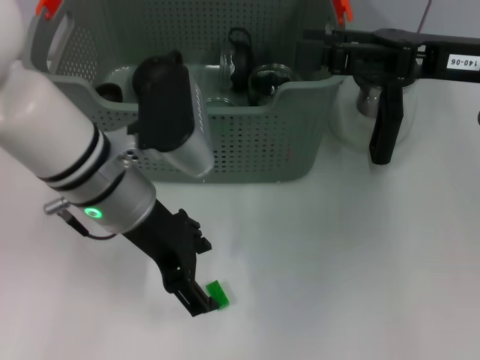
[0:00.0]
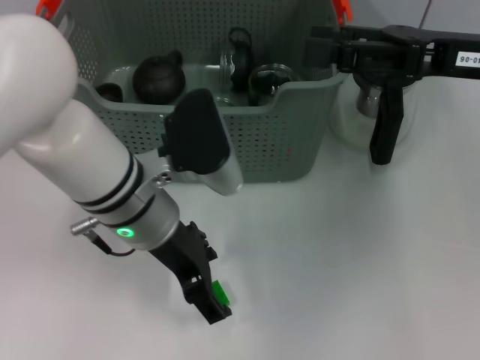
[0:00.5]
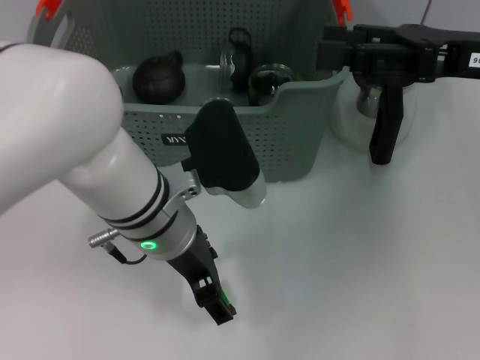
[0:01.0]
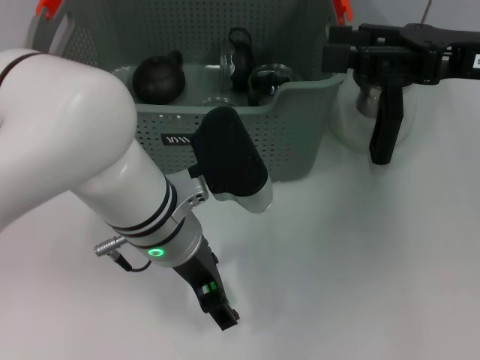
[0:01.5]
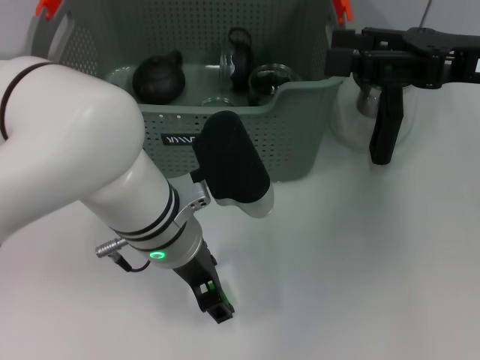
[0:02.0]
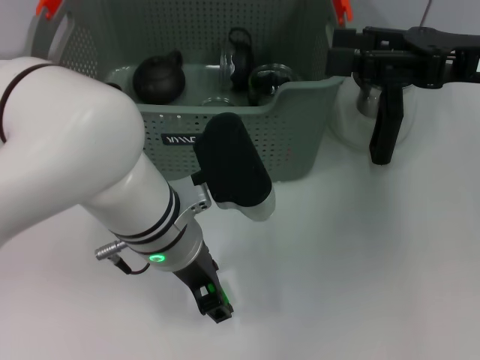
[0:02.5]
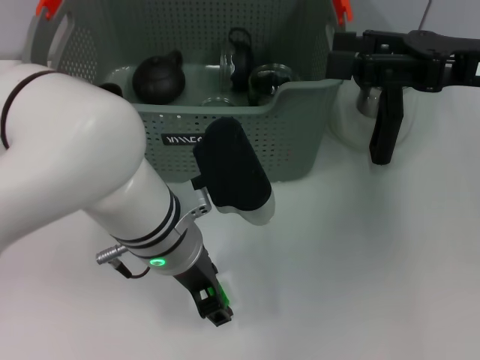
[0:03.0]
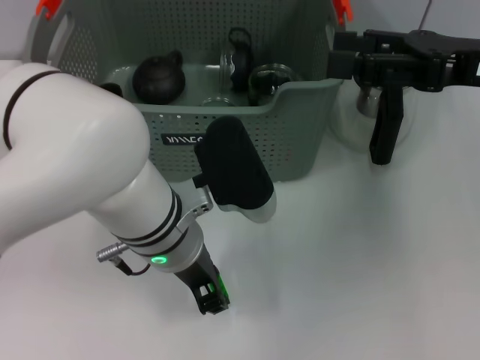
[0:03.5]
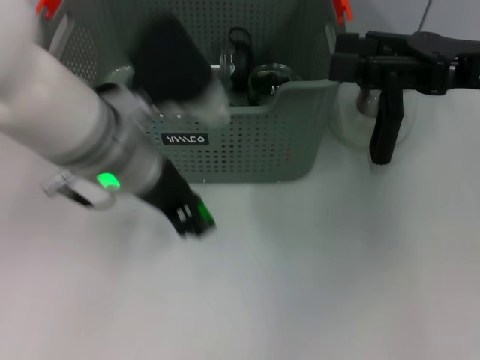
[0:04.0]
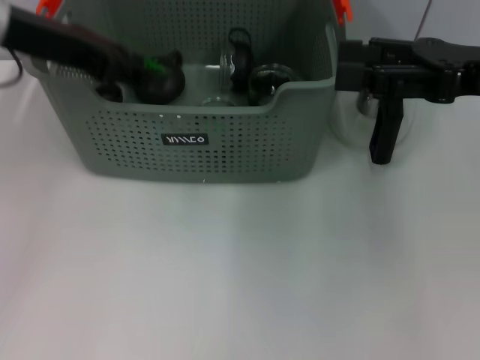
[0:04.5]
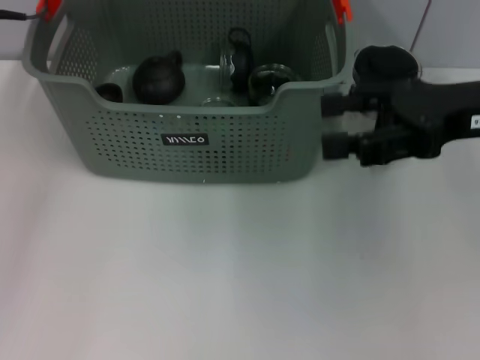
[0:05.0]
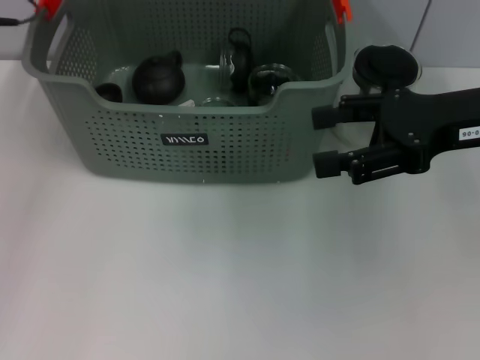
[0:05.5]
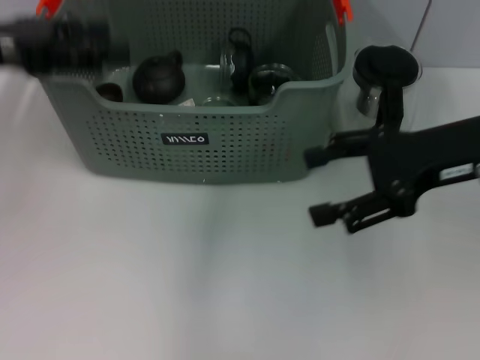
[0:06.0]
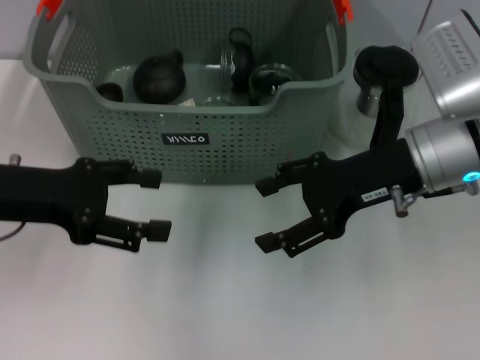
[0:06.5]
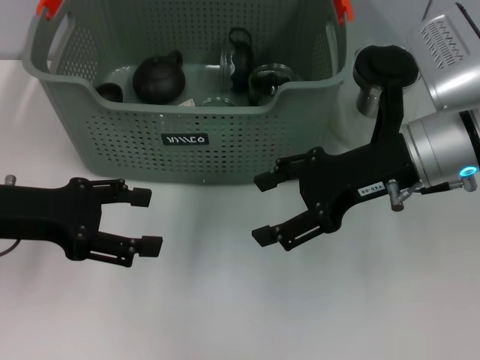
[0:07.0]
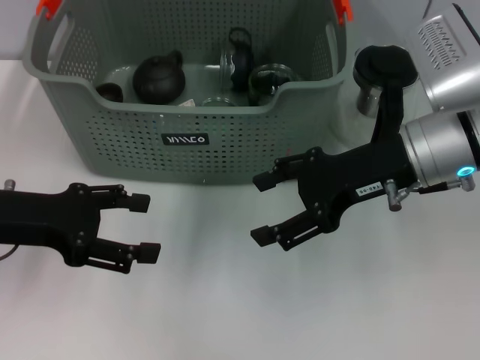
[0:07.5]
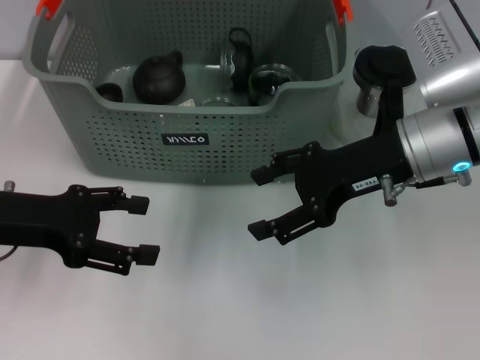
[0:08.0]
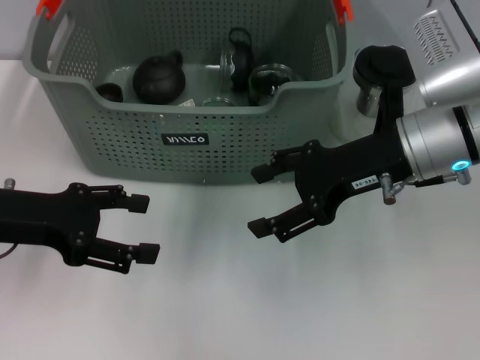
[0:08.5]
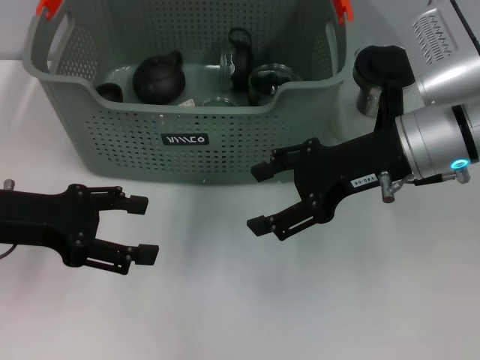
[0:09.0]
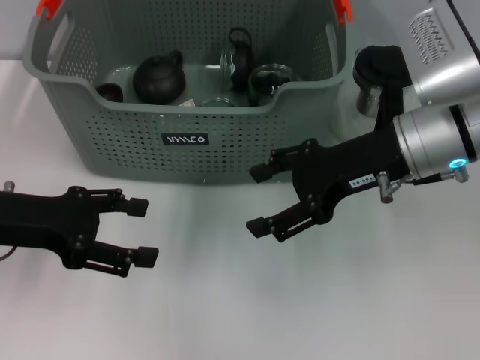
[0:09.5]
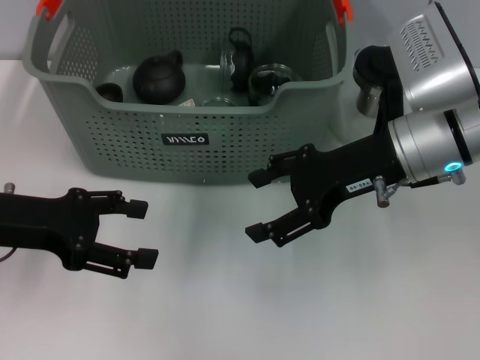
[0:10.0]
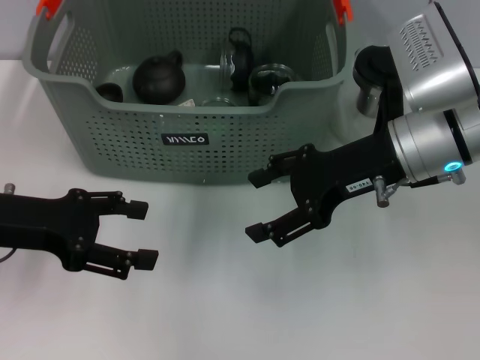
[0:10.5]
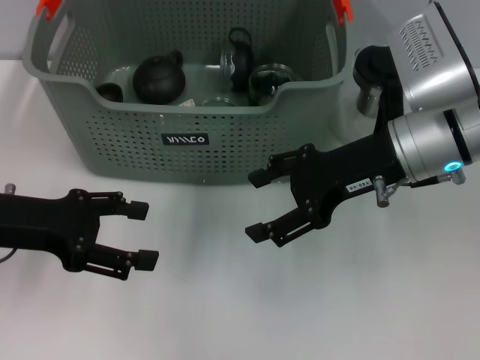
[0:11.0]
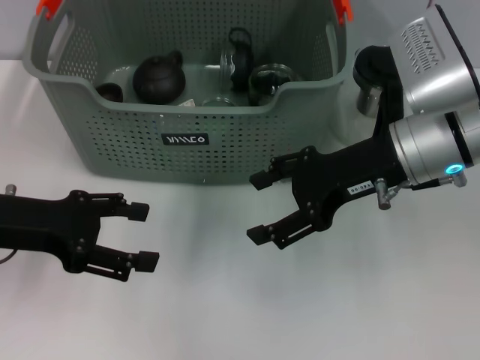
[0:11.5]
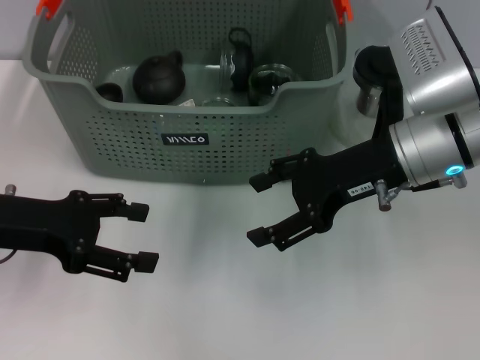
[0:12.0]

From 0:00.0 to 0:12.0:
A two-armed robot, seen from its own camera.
Task of the whole recording: pick up the teacup on the table and place it into the storage bin, pick up the block on the table and place it into the storage bin.
Step, from 0:00.0 to 0:03.0: Grasp the green block with left gripper.
Step, from 0:03.5 to 0:05.0: Place the green block in the storage box with left gripper.
From 0:00.0 to 0:02.0: The left gripper travels to the right by about 5 cm.
From 0:02.0 to 0:04.0: The left gripper moves upward, some 5 cm, and closes.
From 0:04.0 to 0:06.0: The left gripper is displaced to the left by roughly 20 cm, and opens.
From 0:06.0 to 0:08.0: The right gripper goes approximately 5 cm to the left. Meanwhile the left gripper travels downward and backward by some 10 cm.
From 0:08.0 to 0:12.0: Both grippers stay put.

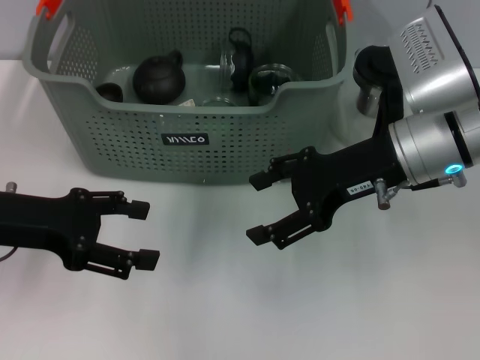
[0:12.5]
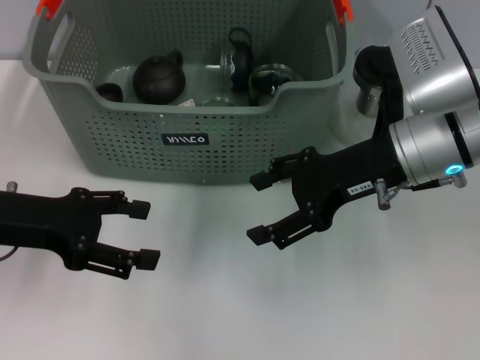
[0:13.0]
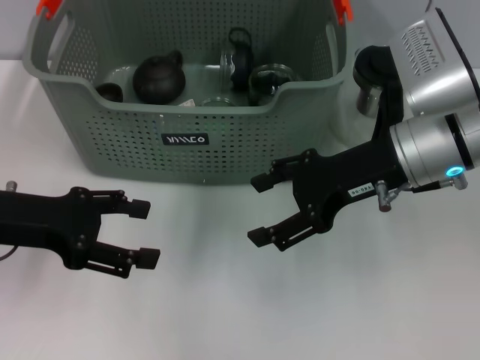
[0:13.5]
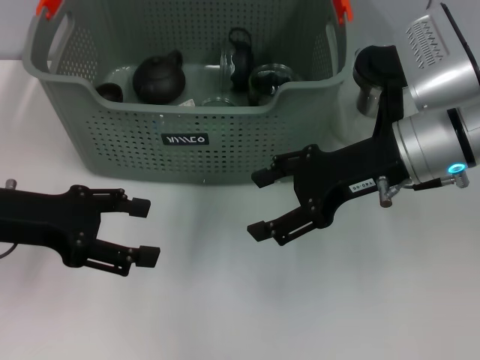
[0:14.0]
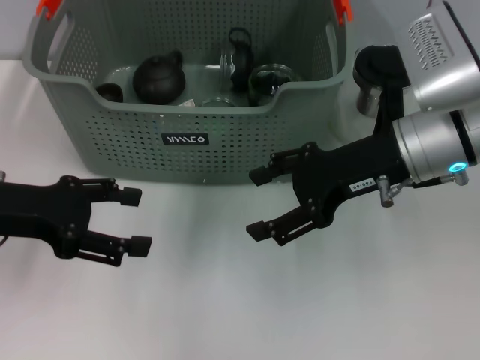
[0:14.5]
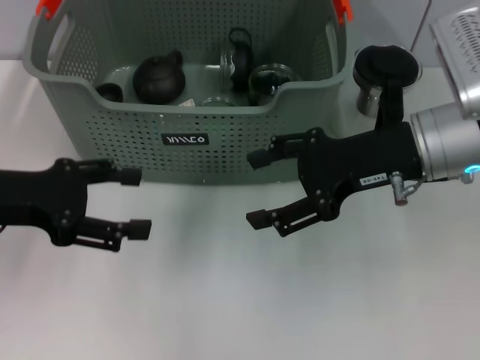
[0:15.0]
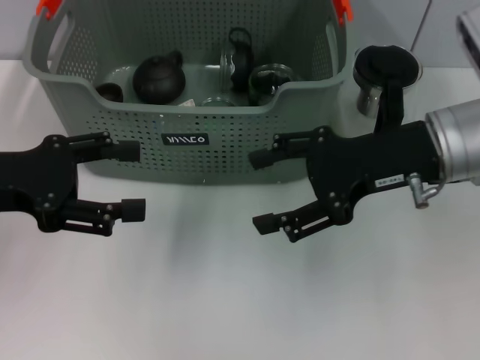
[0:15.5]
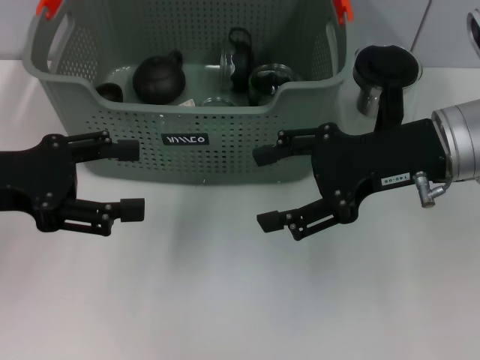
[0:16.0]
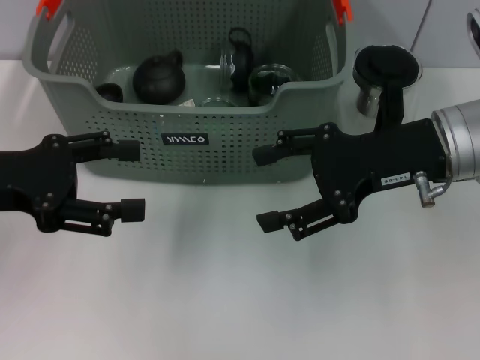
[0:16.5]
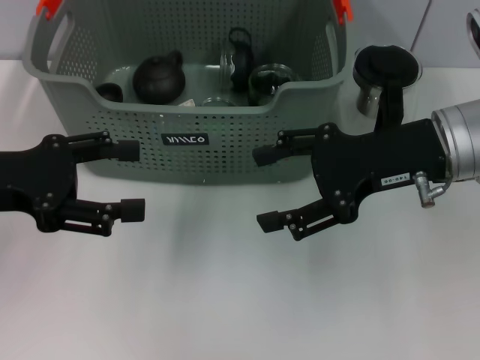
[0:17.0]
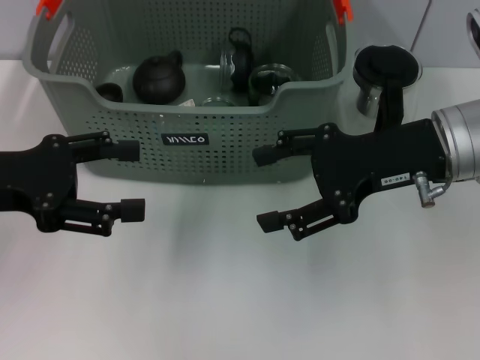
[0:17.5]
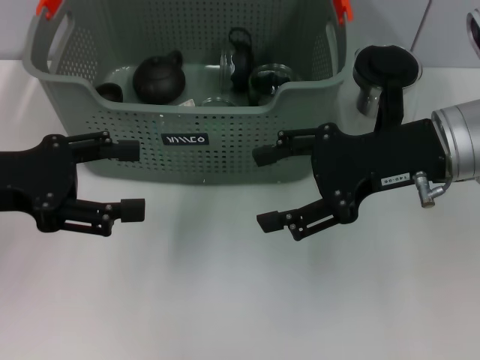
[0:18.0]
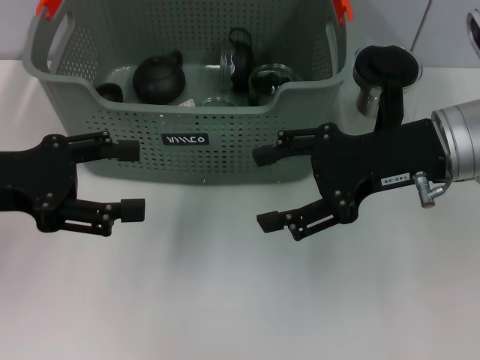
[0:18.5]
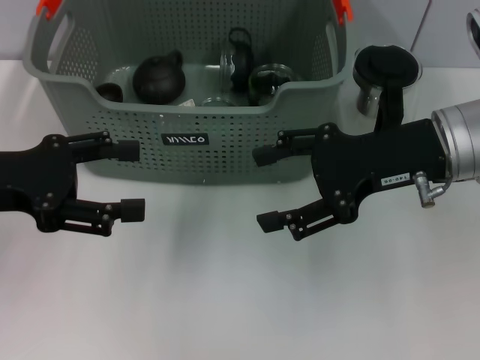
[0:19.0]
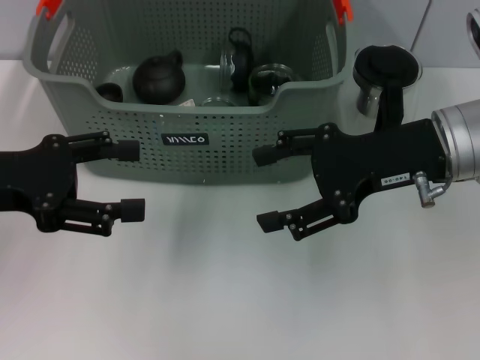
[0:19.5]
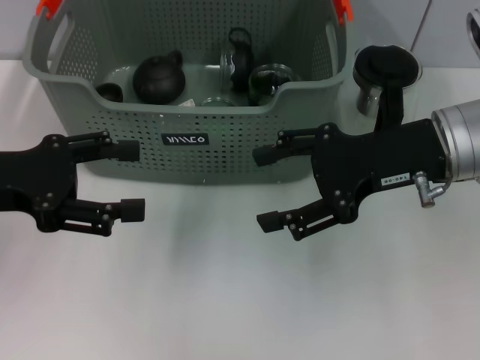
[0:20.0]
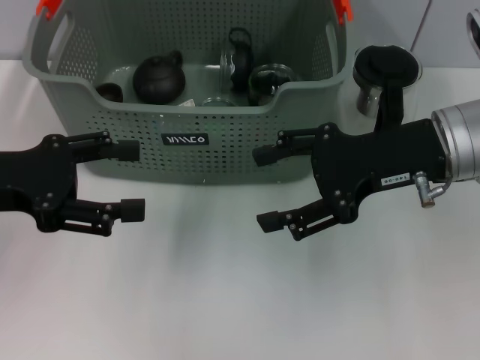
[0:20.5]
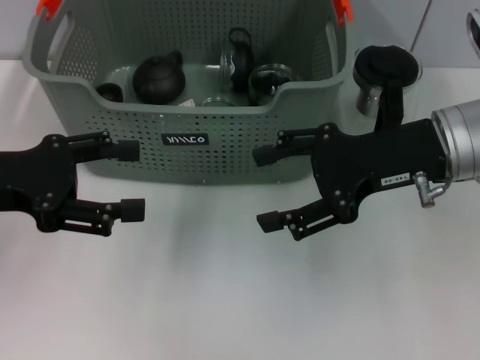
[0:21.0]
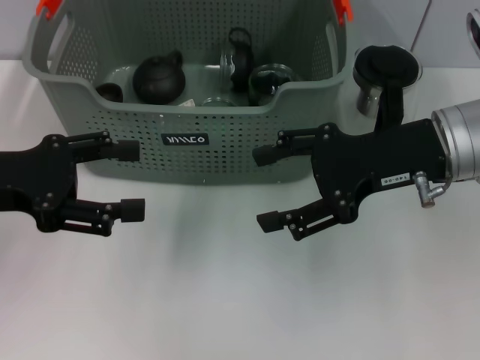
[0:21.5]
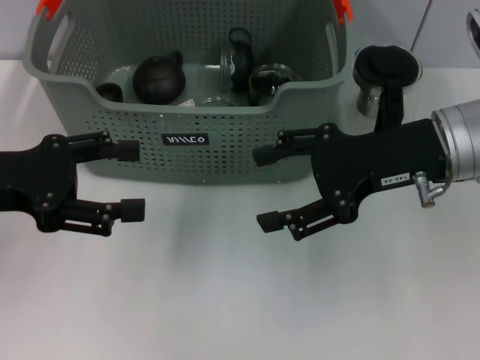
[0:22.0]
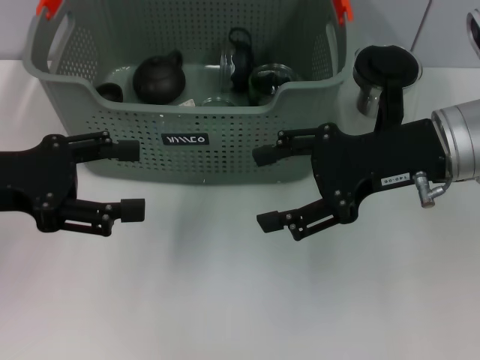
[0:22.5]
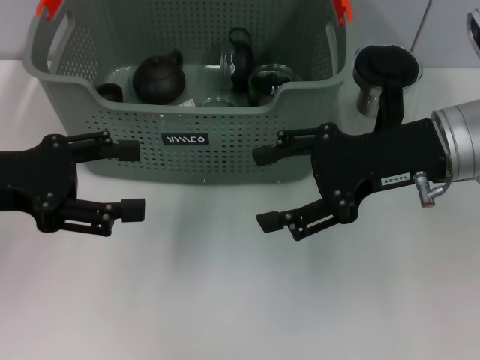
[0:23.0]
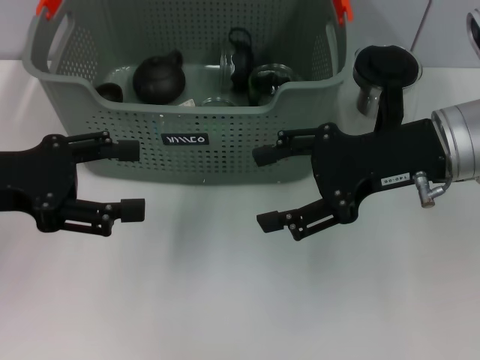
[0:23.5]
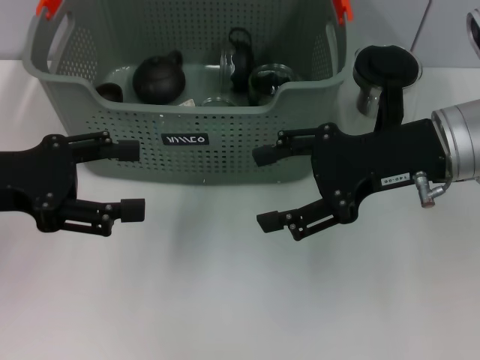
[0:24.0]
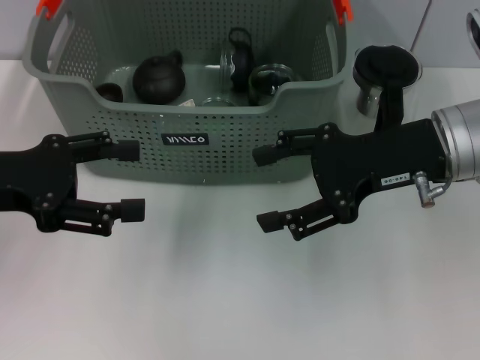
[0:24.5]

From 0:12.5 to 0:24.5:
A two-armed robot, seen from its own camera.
Task of the whole recording: pick up the teacup on the table and place it into the storage bin, pick up the block on the table and place it into the storage bin.
From 0:12.5 to 0:14.5: Both grippers stay put.
From 0:14.5 to 0:16.5: The grippers move only a little.
From 0:16.5 to 0:24.5: The two grippers keep their place.

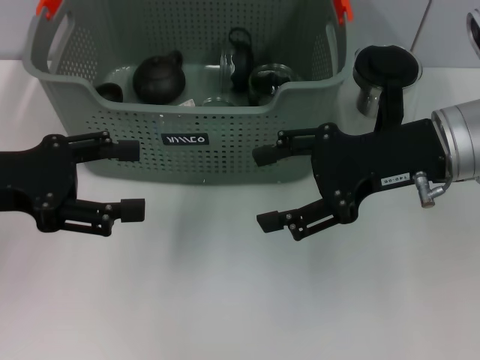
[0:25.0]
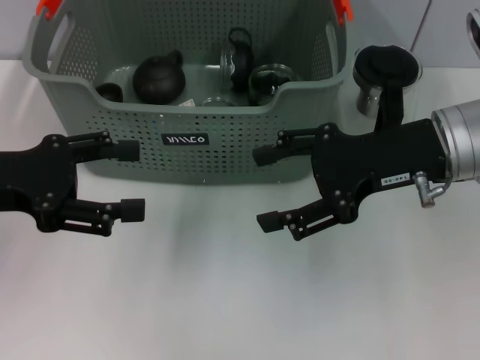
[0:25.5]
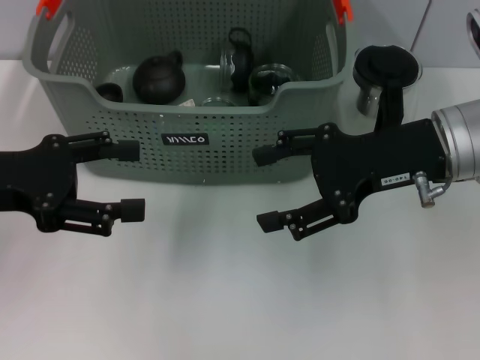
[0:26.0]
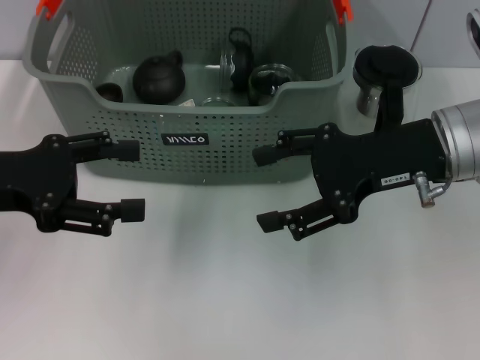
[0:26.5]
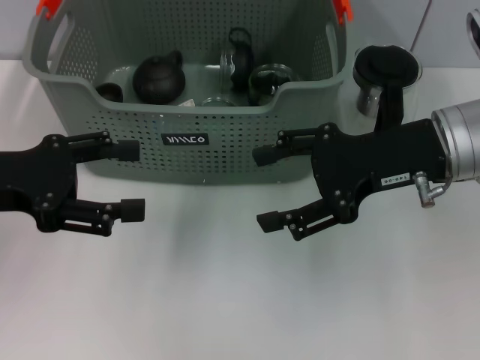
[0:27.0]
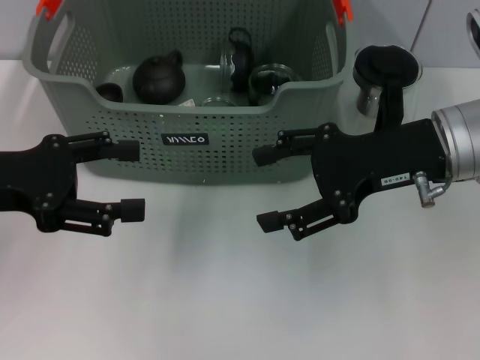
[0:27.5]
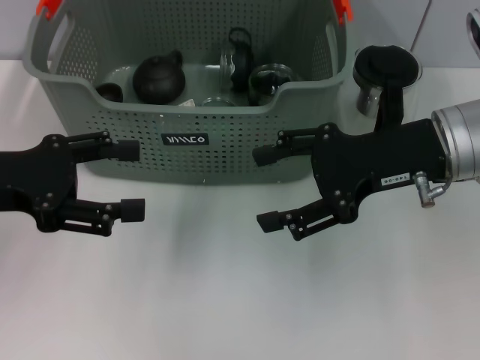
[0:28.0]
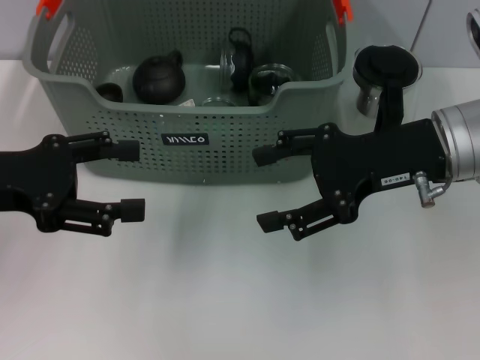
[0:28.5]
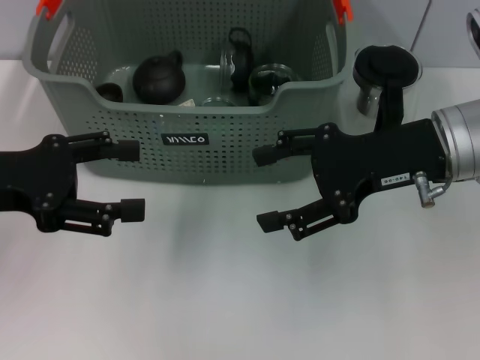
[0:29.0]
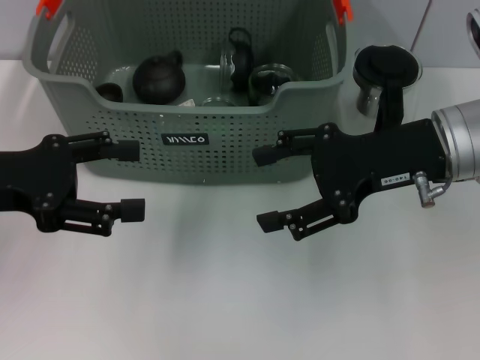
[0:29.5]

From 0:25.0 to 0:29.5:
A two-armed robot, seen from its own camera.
Task of the whole recording: pick up the teacup on the table and place it into the storage bin, pick up the block on the table and place it into the storage bin.
From 0:25.0 to 0:29.5: Both grippers stay about where they are.
